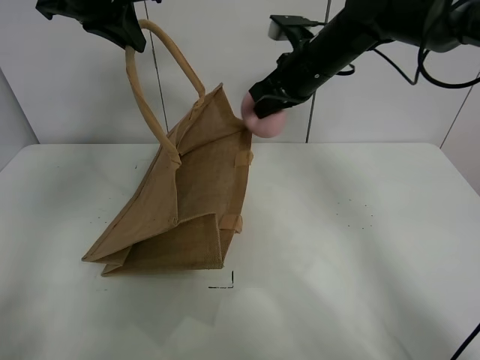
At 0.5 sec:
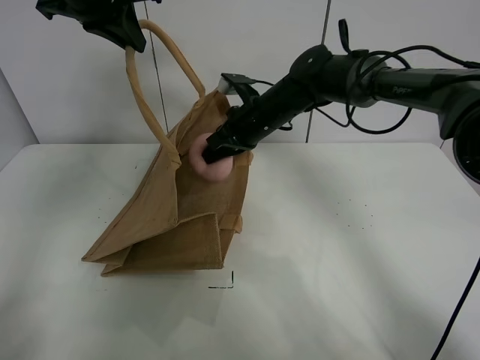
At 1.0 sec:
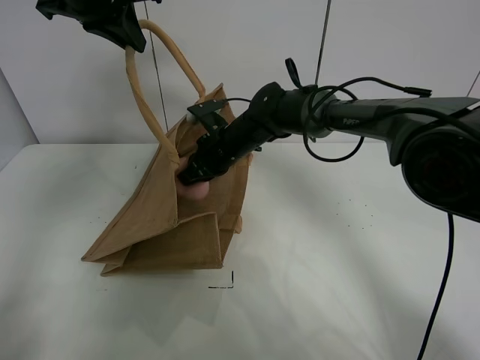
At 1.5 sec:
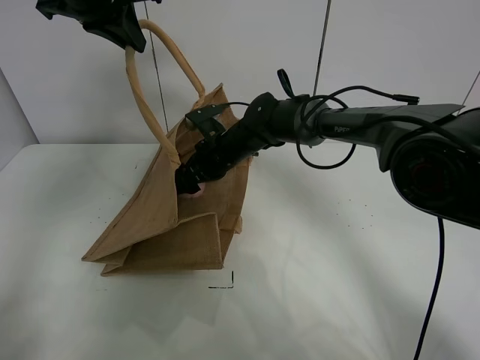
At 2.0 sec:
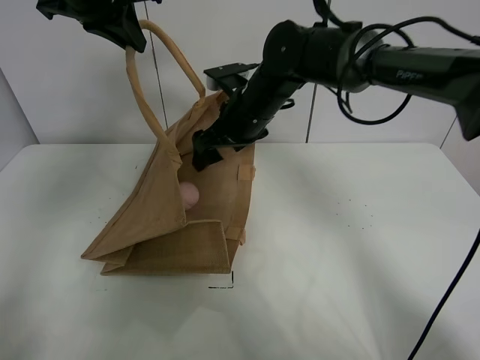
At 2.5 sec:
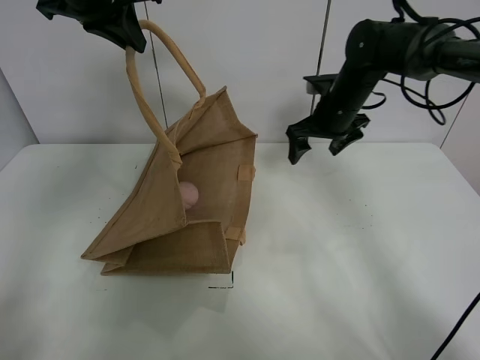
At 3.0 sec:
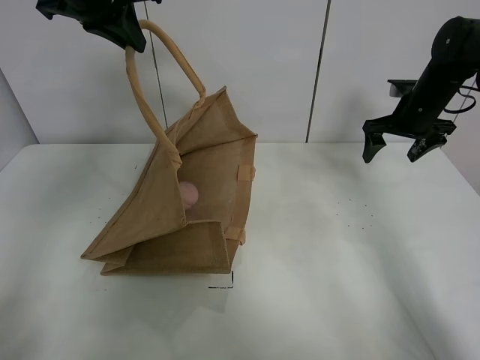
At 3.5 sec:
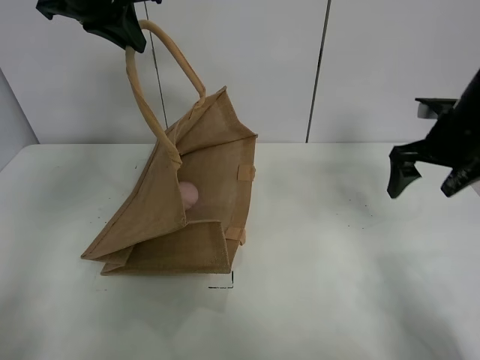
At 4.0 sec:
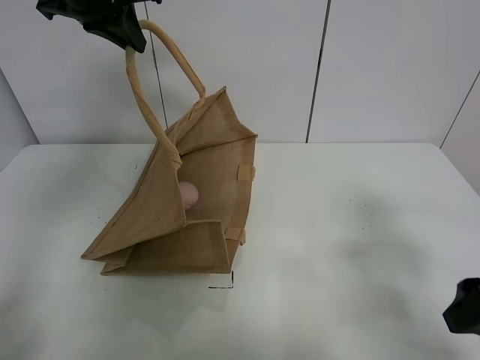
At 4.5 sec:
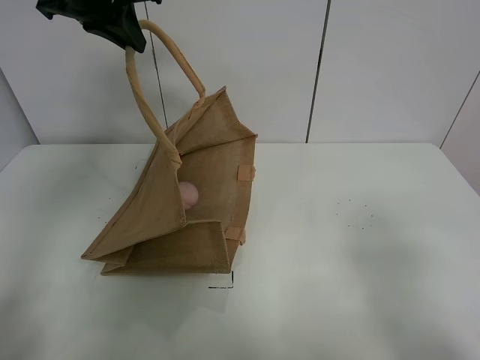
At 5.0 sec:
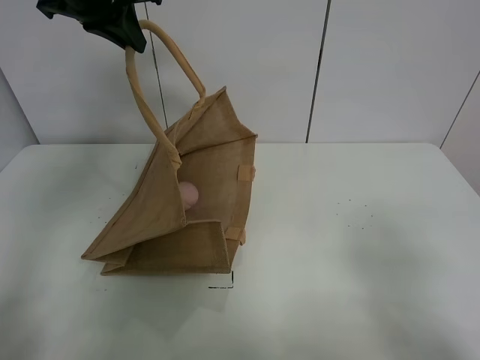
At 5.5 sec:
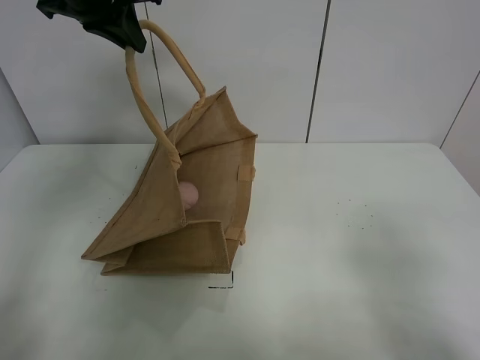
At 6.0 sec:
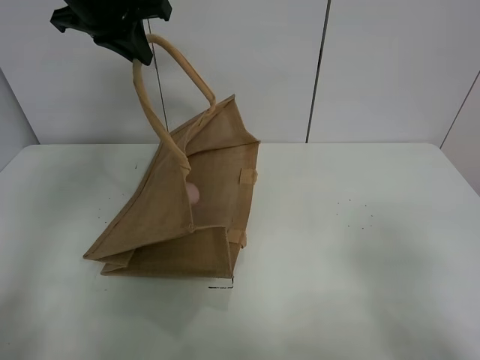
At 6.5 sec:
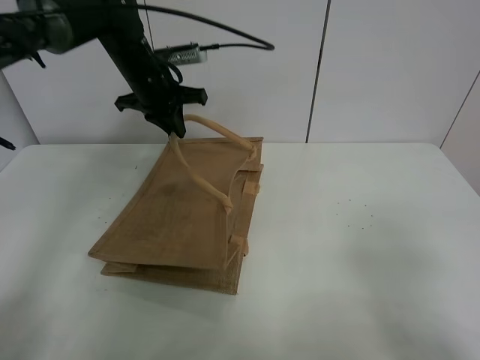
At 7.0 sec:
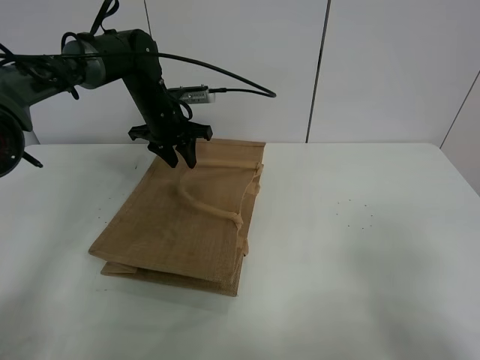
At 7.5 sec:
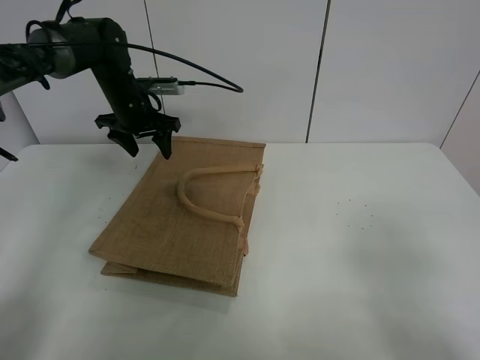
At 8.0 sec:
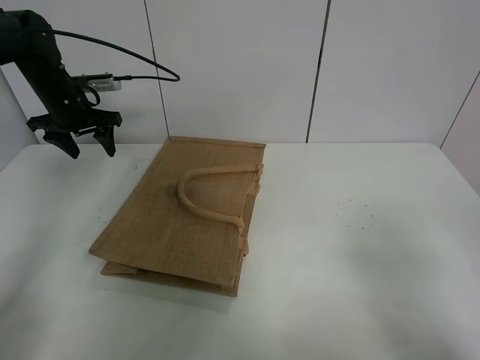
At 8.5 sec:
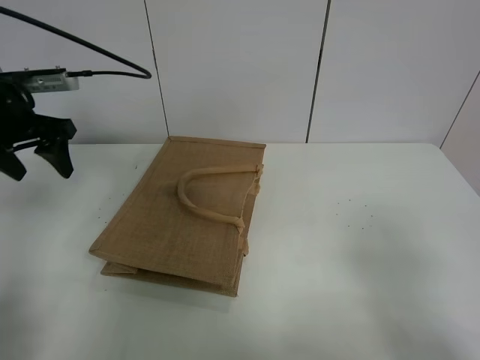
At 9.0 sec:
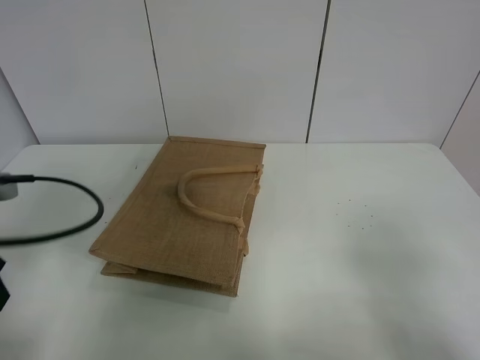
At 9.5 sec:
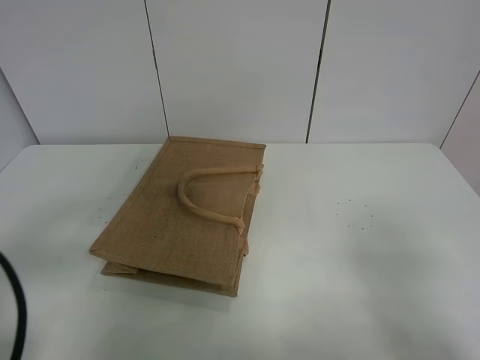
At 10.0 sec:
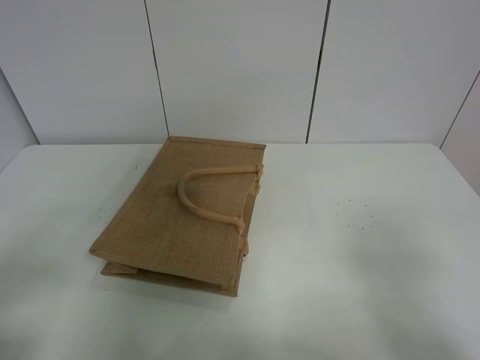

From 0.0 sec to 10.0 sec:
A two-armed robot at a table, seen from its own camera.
Task of the whole recording: open the brown linen bag and put the peach in the bag.
Step, from 0.0 sec to 2.0 sec: Place the peach in the handbag with right gripper.
Step, from 2.5 sec to 7.5 sec: Put down the handbag with left grippe.
From 0.0 sec to 2.0 sec: The right gripper moves to the left, some 5 cm, goes downward and returns, some 15 cm each way, and opens up.
From 2.0 sec to 4.0 sec: The right gripper travels backward and to the right by approximately 40 cm.
From 4.0 sec to 6.0 sec: The right gripper travels backward by approximately 10 cm.
From 6.0 sec to 8.0 sec: The left gripper shifts some 20 cm downward, to the left and forward, and opens up.
From 8.0 sec to 10.0 sec: The left gripper is displaced backward by some 50 cm.
